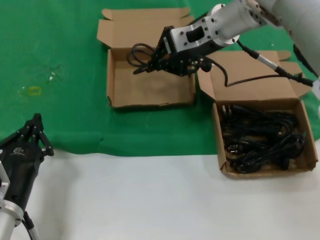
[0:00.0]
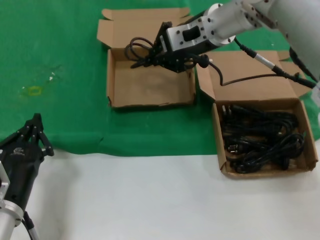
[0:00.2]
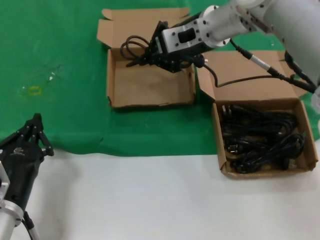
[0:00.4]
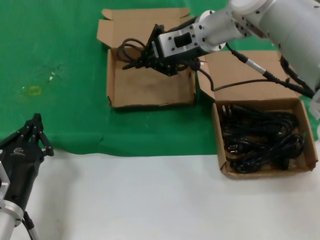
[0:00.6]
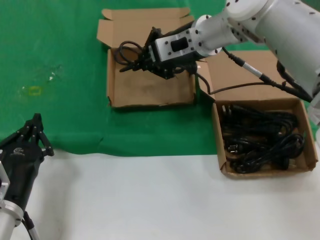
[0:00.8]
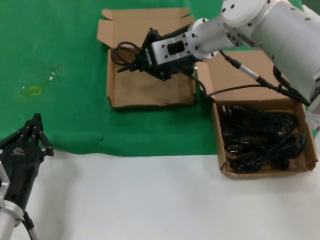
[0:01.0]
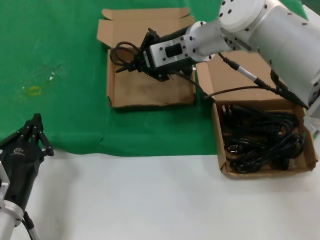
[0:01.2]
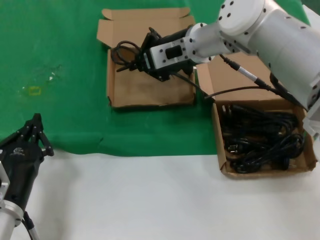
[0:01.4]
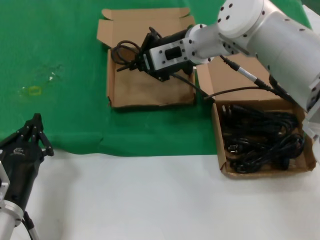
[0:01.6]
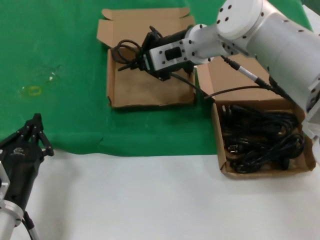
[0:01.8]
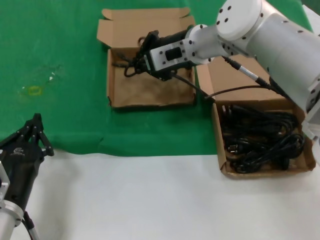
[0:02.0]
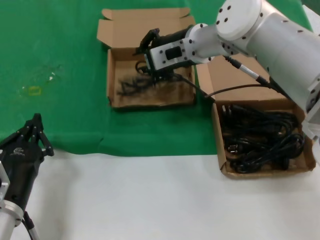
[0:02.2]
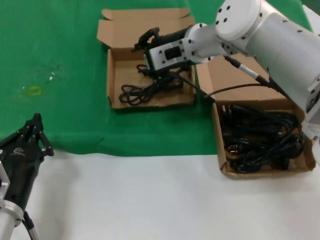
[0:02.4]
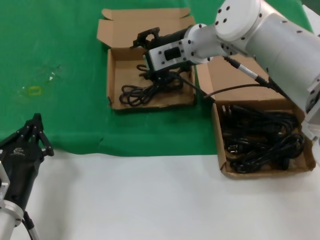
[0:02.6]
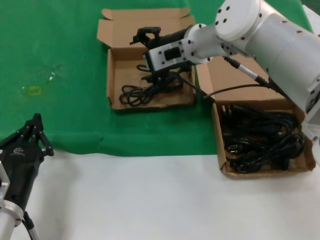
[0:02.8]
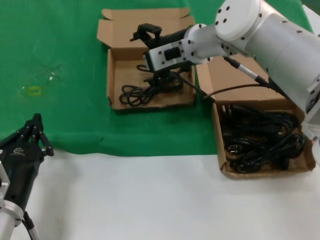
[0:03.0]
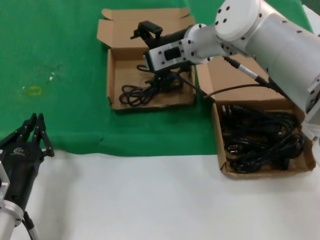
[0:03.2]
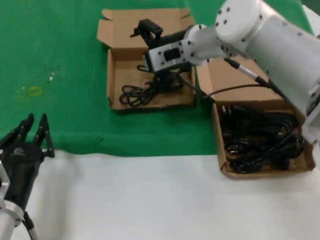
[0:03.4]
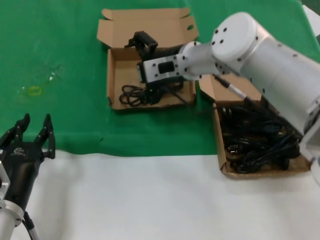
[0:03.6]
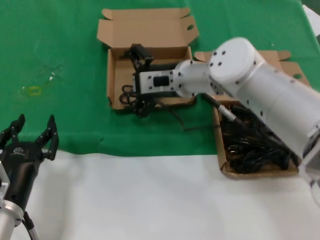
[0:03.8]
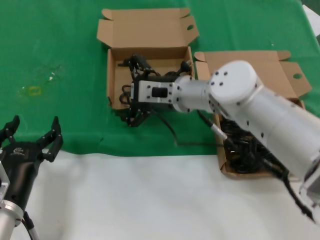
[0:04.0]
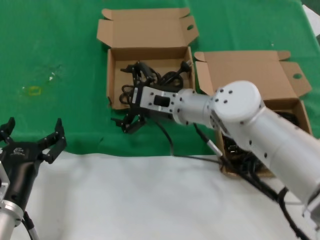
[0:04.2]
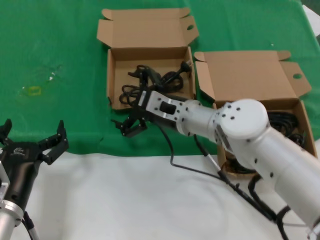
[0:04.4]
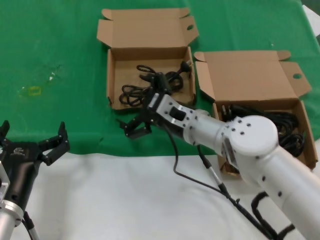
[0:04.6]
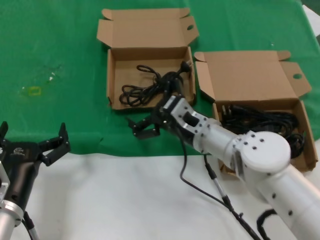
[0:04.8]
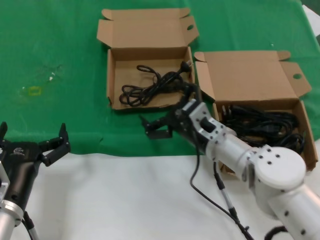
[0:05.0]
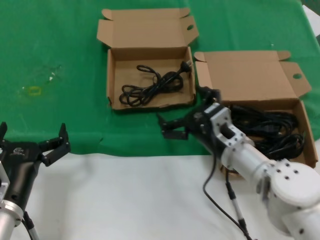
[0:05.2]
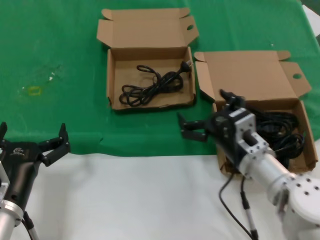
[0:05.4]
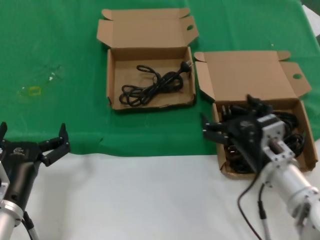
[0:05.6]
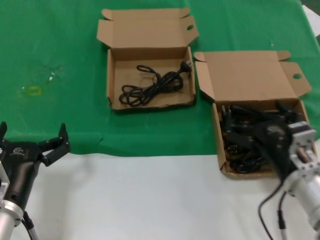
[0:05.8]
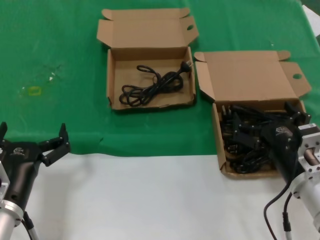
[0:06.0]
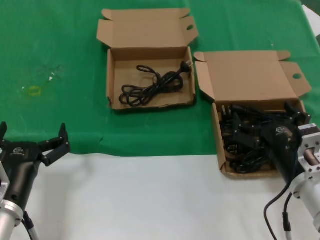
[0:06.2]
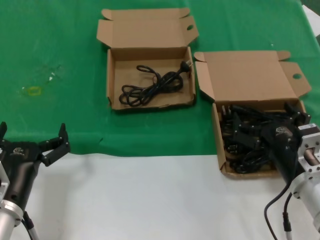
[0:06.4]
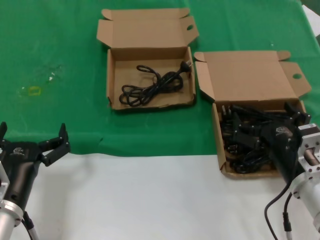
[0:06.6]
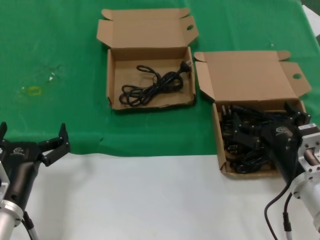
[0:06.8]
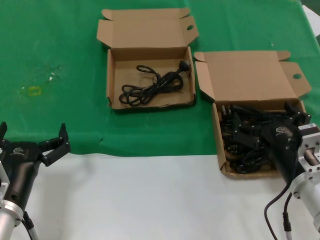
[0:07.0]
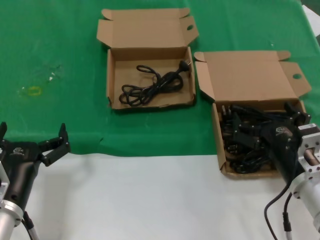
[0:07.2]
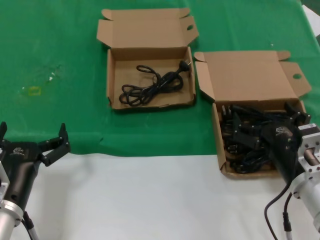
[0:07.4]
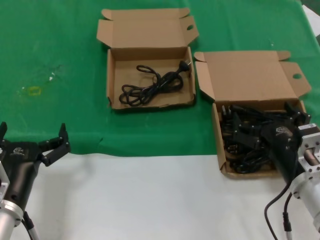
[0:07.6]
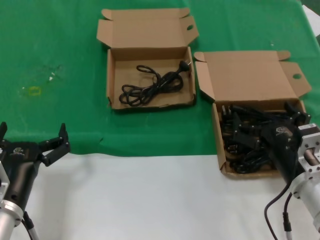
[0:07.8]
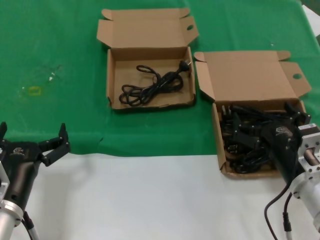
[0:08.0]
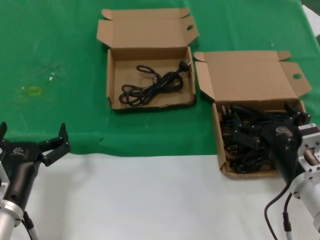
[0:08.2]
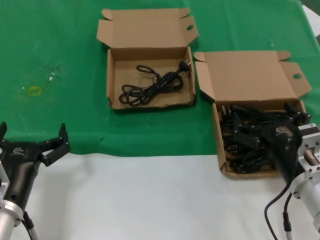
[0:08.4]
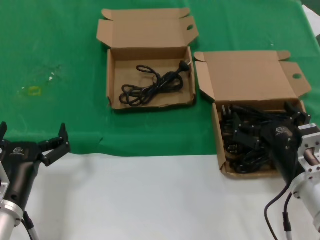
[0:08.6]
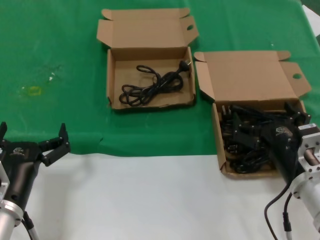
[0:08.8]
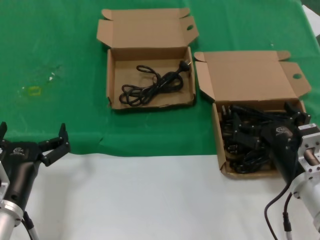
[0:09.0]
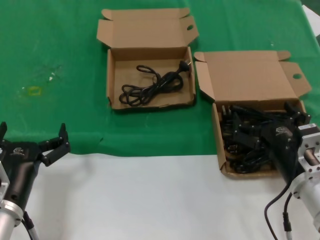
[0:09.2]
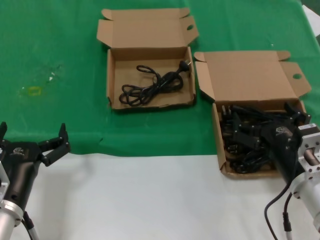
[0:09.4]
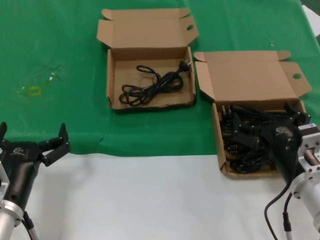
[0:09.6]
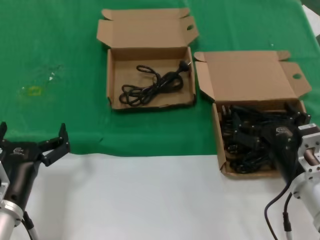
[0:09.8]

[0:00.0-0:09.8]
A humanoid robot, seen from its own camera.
Task of the whole recording: take the parts from the box containing them and put them into an empty box.
Step, 0:00.0 to 0:02.2: Place the data cable in the another box.
0:00.0 to 0:01.4: The right hand changes place by about 5 cm.
0:01.4 to 0:02.8: Both hands stay put.
0:02.8 to 0:04.2: The right hand shifts roughly 15 cm downward and backward.
0:04.2 to 0:05.6: The right hand is displaced backward, to the right and downward by about 20 cm.
0:05.6 to 0:07.0: The right hand changes place by approximately 5 cm.
0:07.0 to 0:09.8: Both hands stay put.

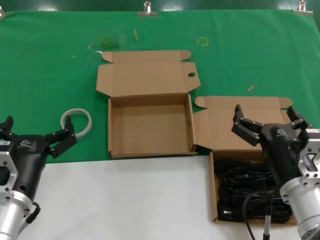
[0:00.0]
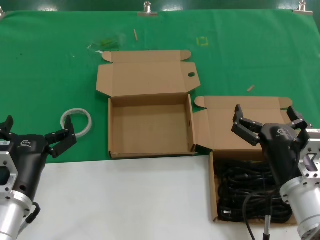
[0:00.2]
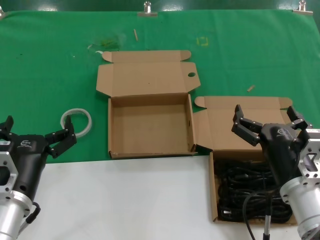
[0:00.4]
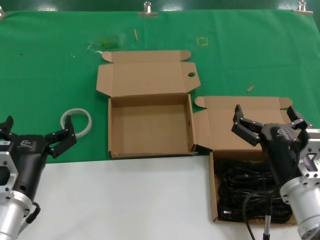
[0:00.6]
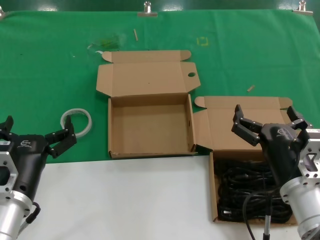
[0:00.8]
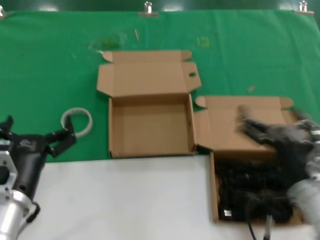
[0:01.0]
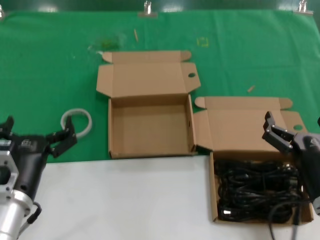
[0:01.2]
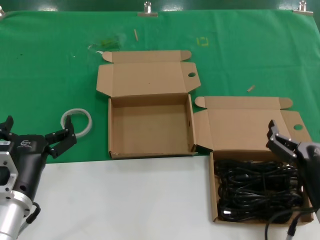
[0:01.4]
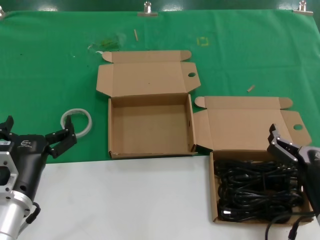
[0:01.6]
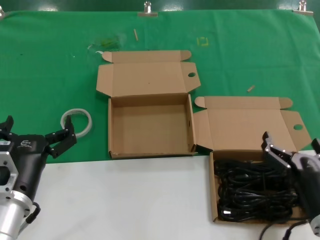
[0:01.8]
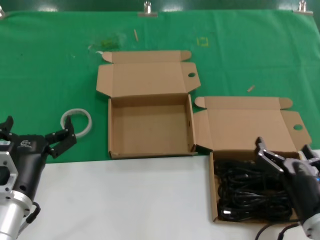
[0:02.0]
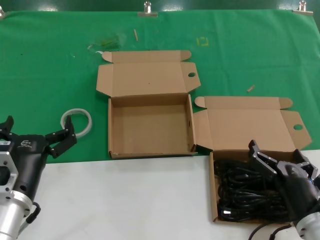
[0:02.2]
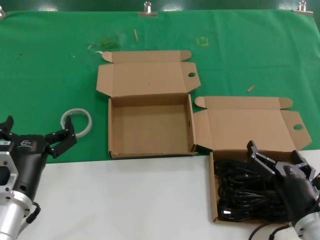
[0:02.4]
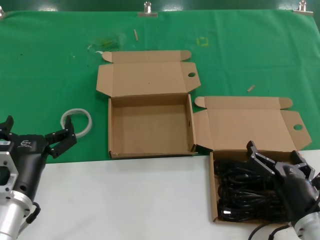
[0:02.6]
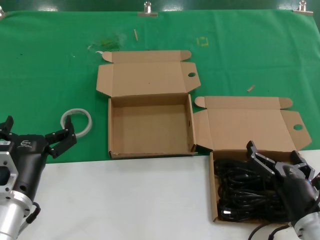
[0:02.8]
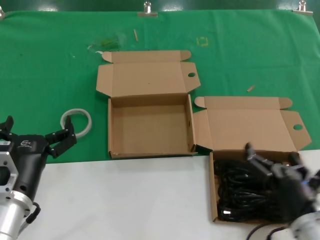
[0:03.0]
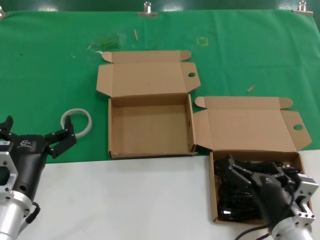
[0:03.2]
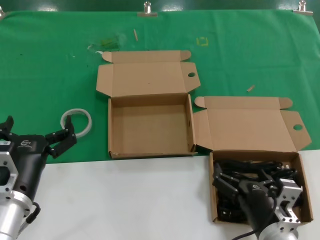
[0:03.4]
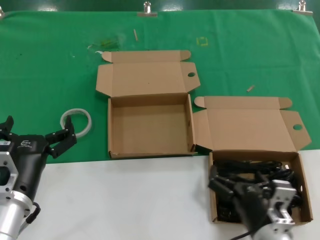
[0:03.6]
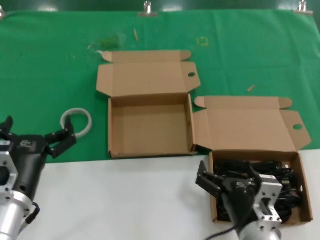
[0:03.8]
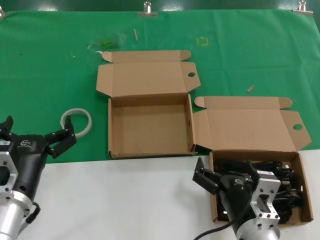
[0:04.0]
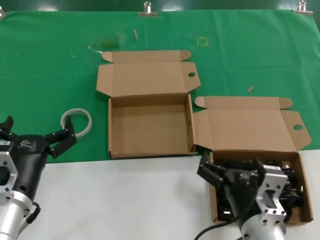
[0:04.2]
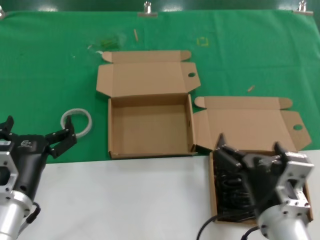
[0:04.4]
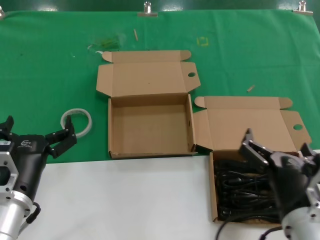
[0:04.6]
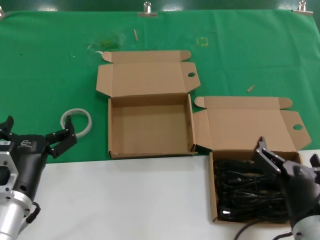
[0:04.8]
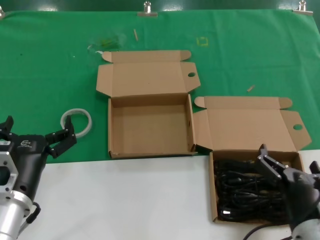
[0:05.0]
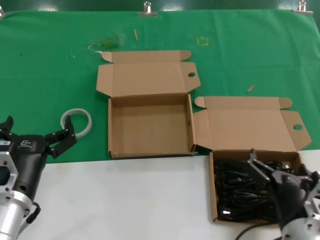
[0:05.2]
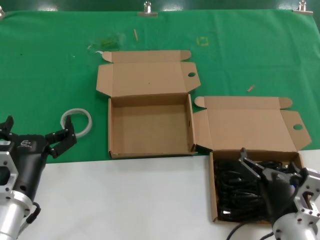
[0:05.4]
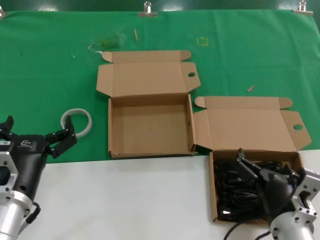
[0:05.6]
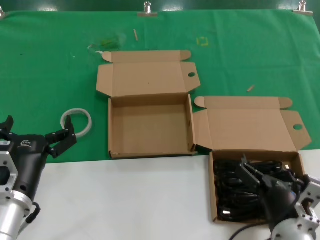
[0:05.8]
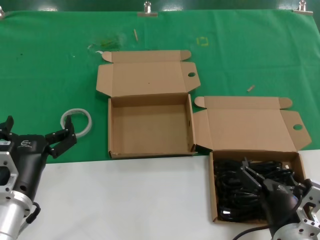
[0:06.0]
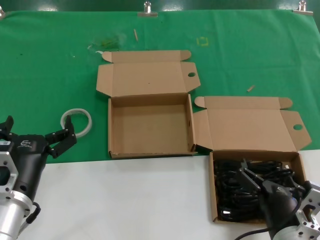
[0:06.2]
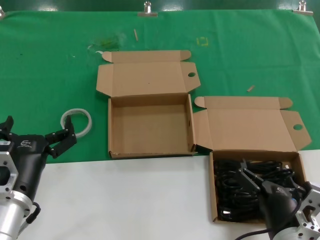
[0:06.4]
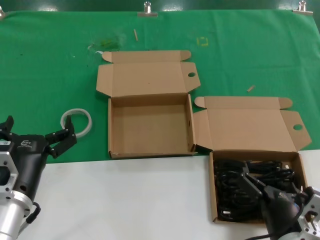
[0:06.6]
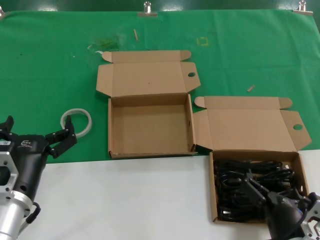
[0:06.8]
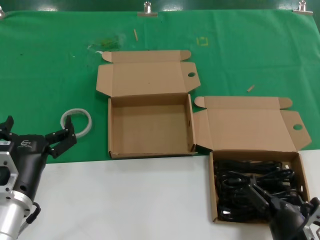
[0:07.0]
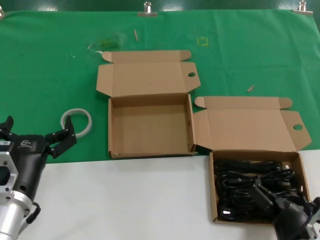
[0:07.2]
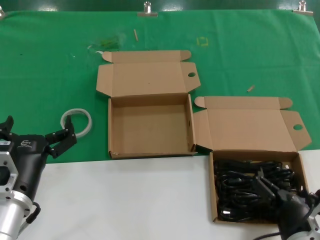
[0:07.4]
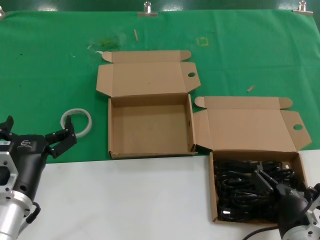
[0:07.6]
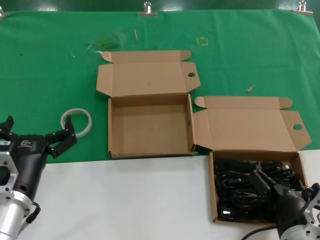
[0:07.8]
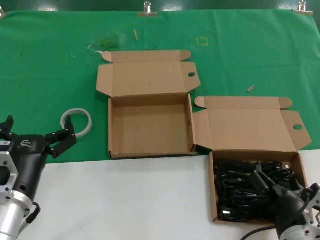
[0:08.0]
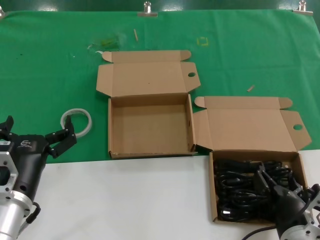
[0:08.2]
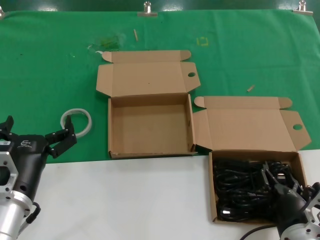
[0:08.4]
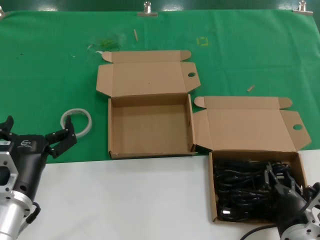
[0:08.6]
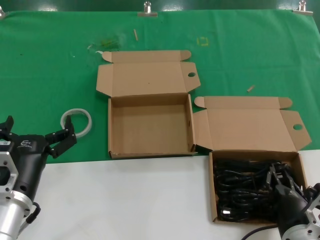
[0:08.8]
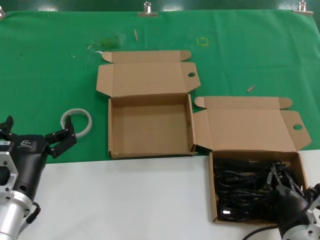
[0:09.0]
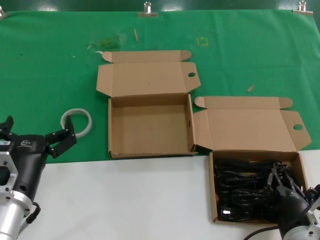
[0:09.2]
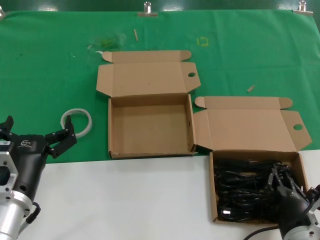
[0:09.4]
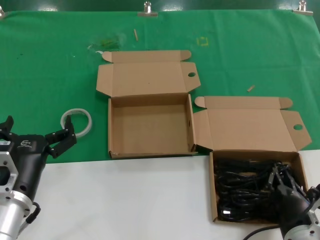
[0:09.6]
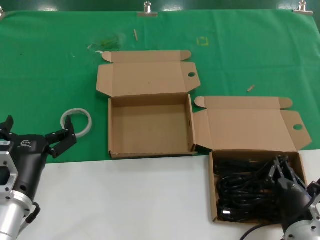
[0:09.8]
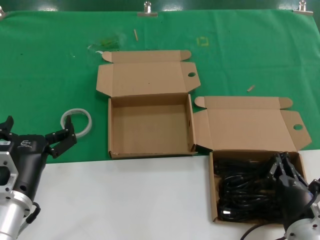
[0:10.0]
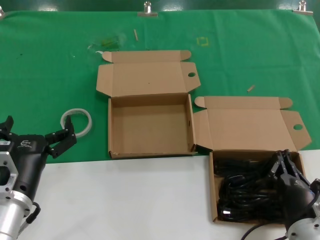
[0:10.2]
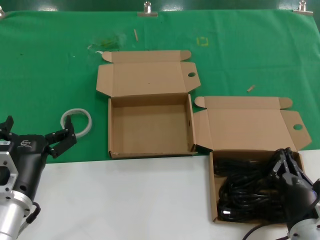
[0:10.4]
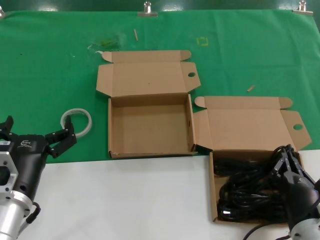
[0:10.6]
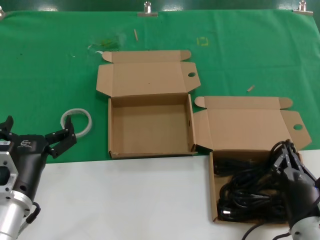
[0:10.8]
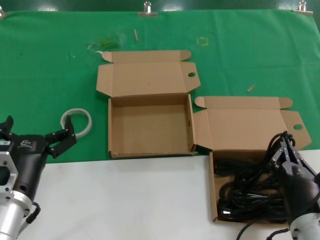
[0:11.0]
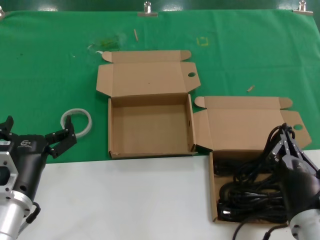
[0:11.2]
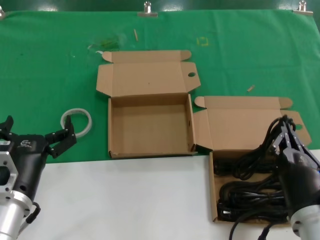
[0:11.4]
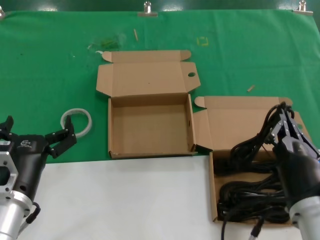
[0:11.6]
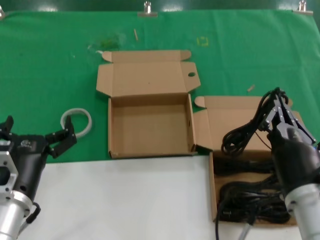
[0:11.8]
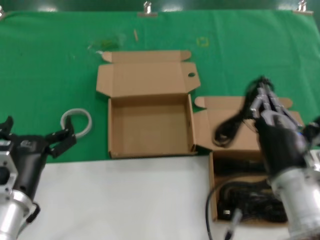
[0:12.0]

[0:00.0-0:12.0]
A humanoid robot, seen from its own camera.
Task of the whole recording: take the parts from the box containing them and put them into an empty box.
Step, 0:00.0 to 0:09.0: Grasp the data cable.
0:00.0 to 0:01.6: The right hand moves to the right, some 5 cm.
0:01.6 to 0:03.0: The right hand shifts by approximately 5 cm.
0:03.0 to 0:04.4: The right hand moves to the left and upward, some 15 cm.
0:04.4 to 0:06.0: The right hand heads downward, covering approximately 5 cm.
0:06.0 to 0:07.6: The hands move only a little.
0:07.6 to 0:09.0: The two hands keep their place.
0:09.0 to 0:10.4: The hands move only a little.
0:10.4 to 0:12.0: The right hand travels upward by roughly 10 cm.
